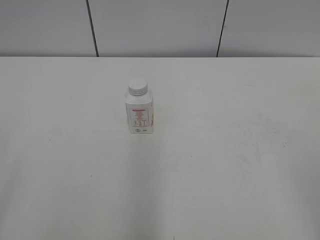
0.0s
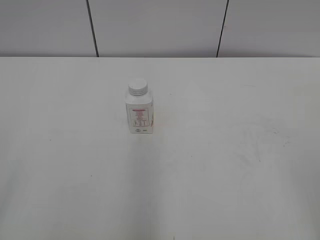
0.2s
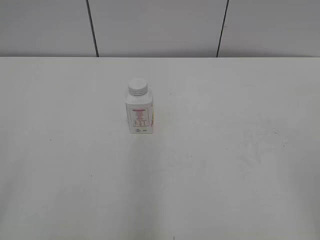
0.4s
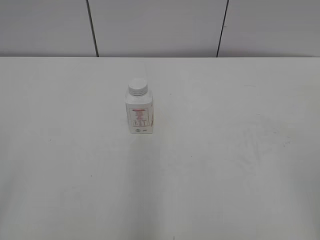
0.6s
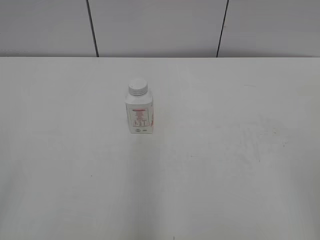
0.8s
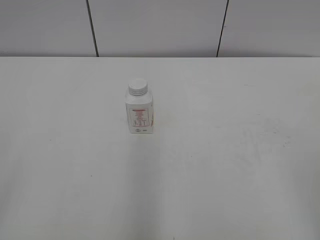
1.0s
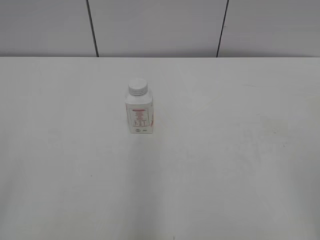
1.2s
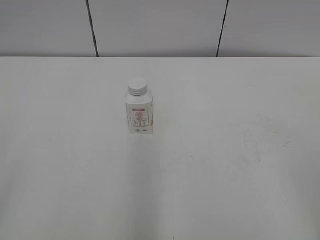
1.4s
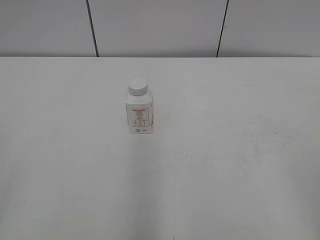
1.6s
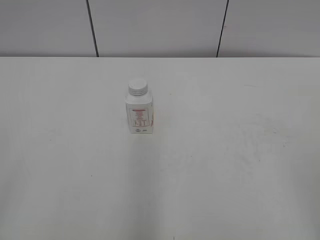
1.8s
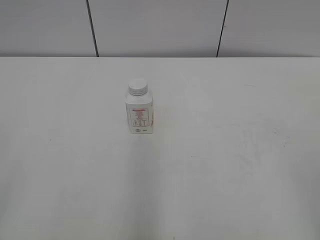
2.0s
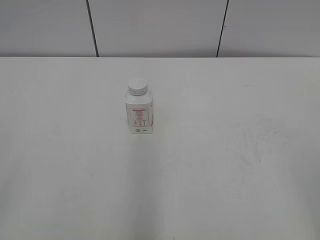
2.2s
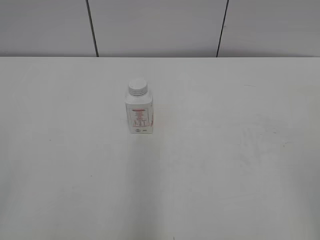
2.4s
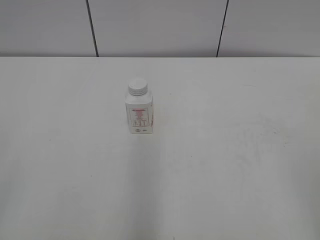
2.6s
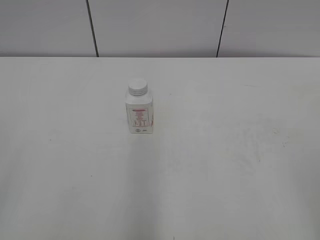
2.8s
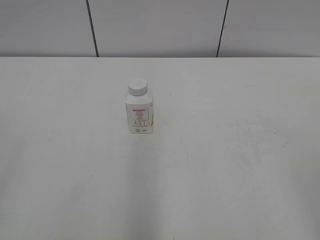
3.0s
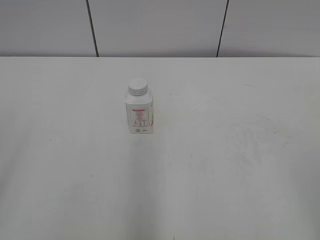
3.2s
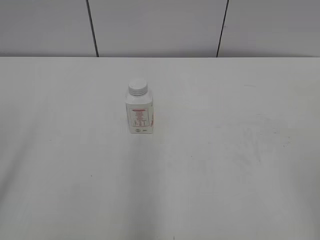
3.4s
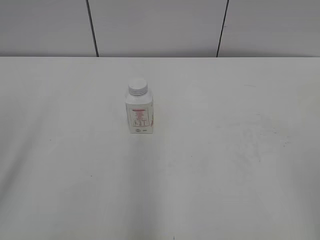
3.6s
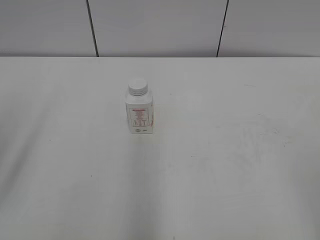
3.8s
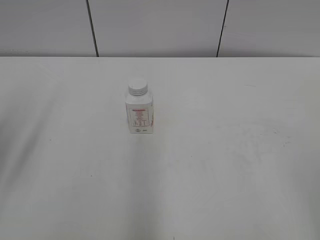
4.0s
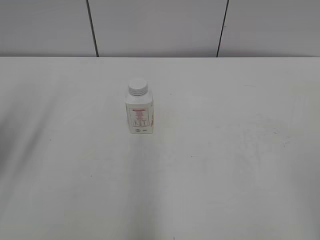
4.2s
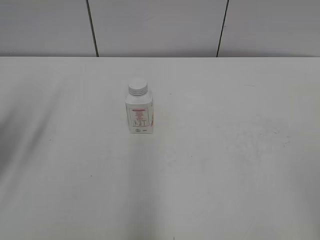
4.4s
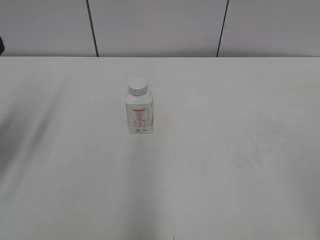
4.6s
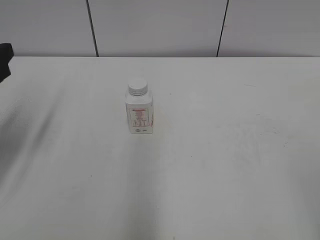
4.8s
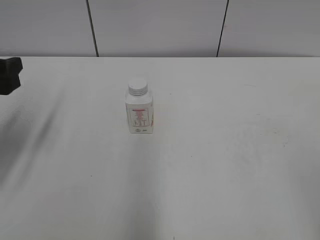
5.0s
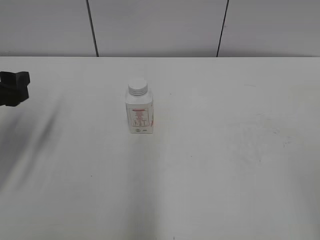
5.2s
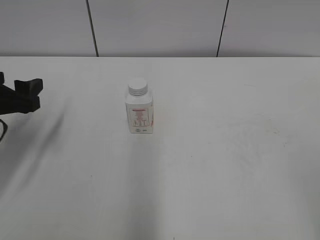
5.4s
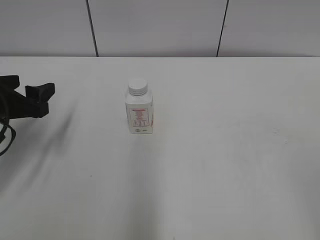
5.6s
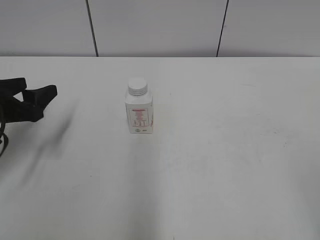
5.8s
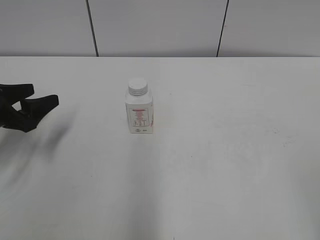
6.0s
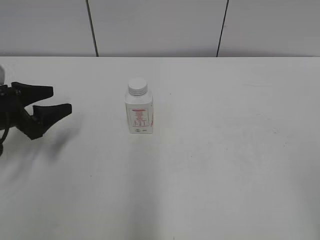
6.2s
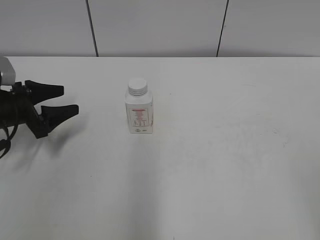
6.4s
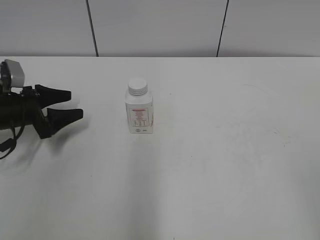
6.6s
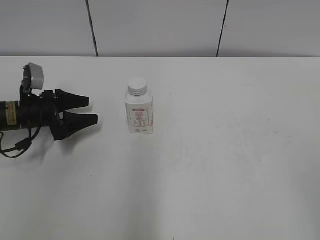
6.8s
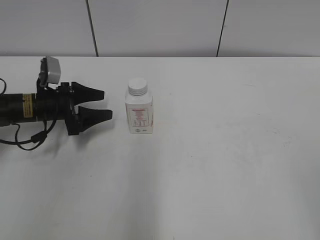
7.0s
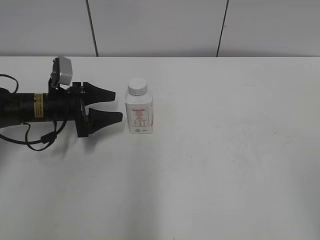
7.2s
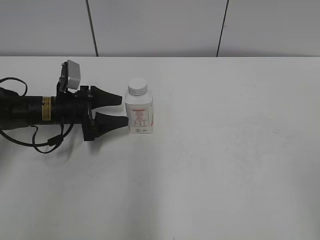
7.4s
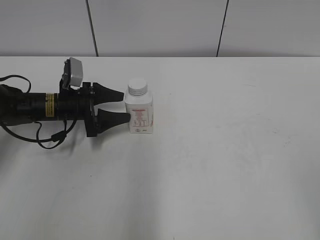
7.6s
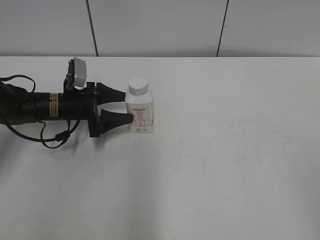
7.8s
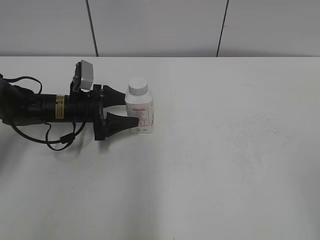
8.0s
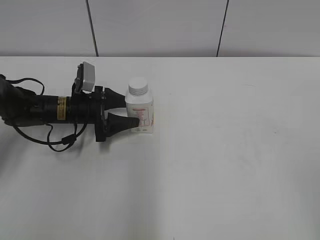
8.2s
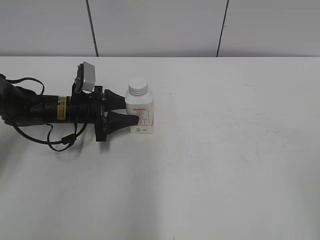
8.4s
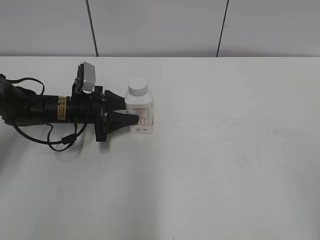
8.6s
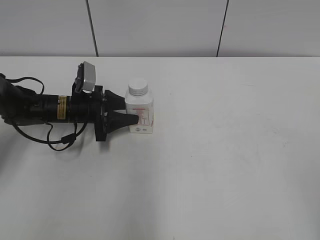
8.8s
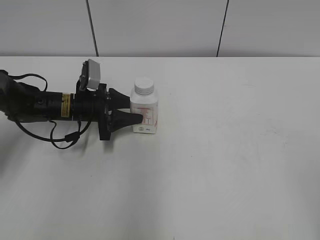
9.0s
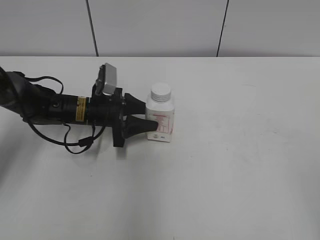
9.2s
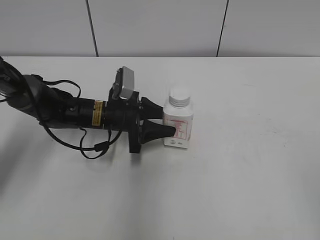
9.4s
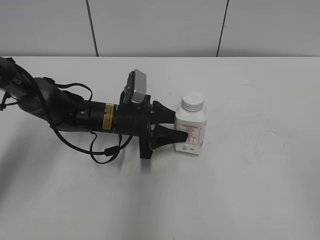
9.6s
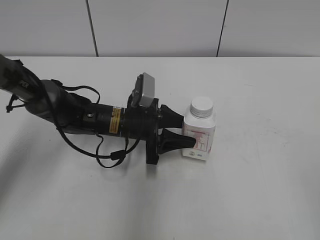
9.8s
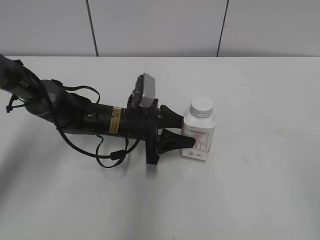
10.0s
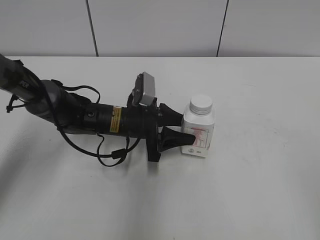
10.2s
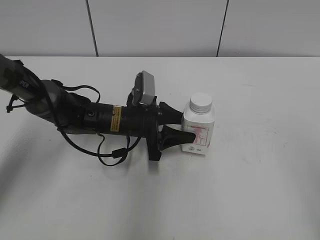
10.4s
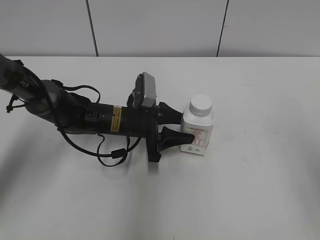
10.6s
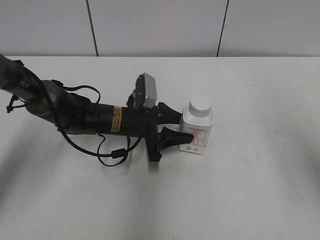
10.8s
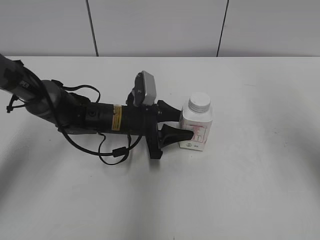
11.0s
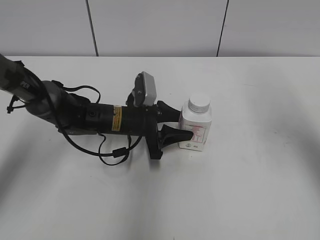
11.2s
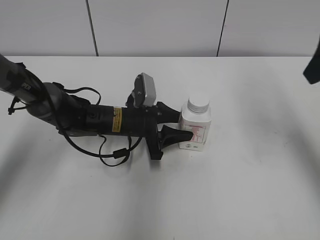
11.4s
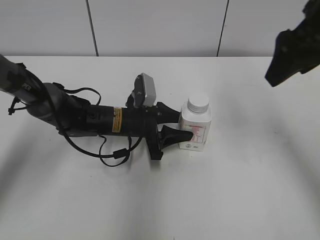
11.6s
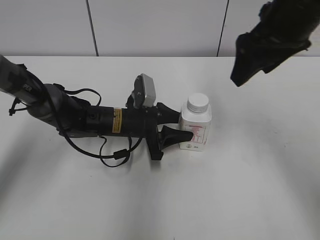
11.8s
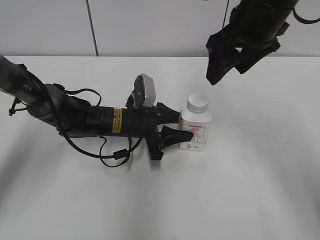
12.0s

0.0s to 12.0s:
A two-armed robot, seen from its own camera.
Step, 0.0s to 8.2s: Grasp the bottle and move it to the center of the table with the left gripper.
Step, 8.6s to 11.6s: Lift the bottle and move it to the center of the table with the left gripper.
3.0s to 4.4s: The left gripper is displaced forward by roughly 20 cm, and opens.
4.4s to 6.0s: The left gripper is displaced downward and forward by roughly 15 cm.
6.0s to 7.6s: The left gripper is displaced forward, to the right and downward by approximately 15 cm.
7.6s to 9.0s: The left gripper closes.
9.0s to 10.4s: The left gripper moves to the right, some 10 cm.
10.4s to 12.0s: The right gripper travels forward and to the left by roughly 35 cm.

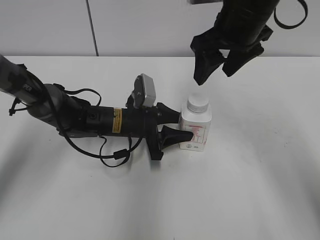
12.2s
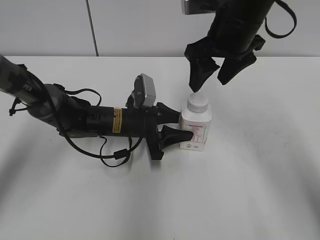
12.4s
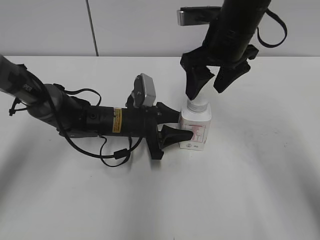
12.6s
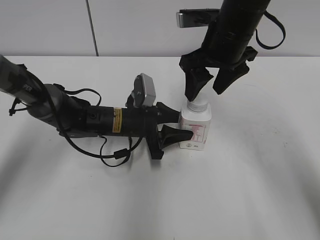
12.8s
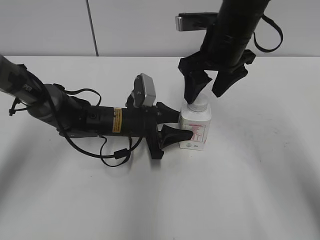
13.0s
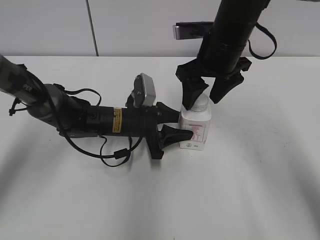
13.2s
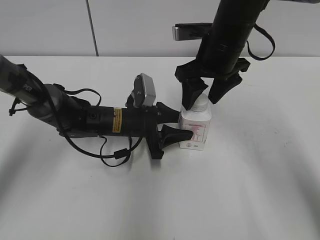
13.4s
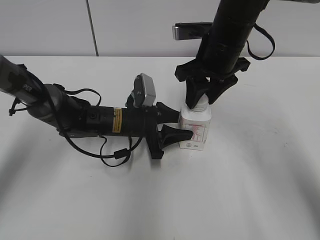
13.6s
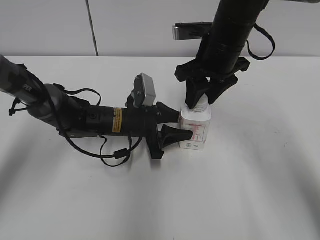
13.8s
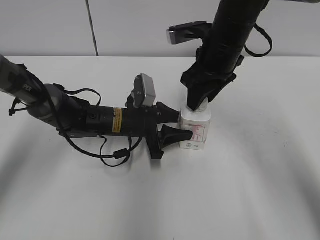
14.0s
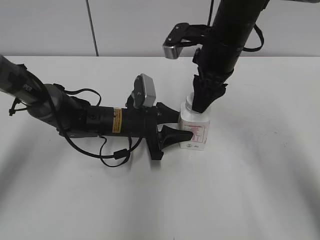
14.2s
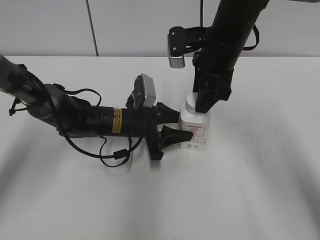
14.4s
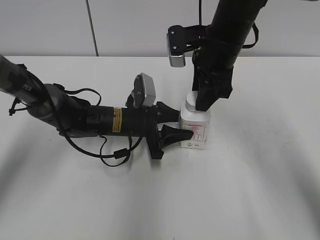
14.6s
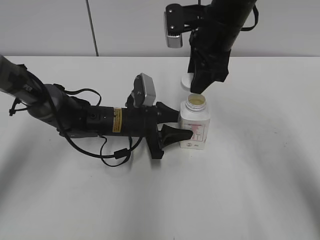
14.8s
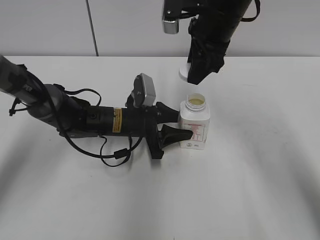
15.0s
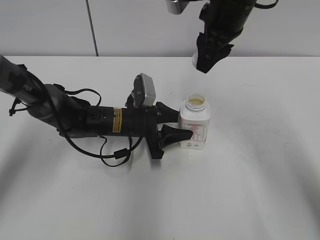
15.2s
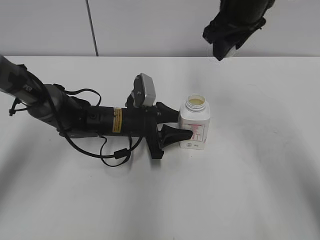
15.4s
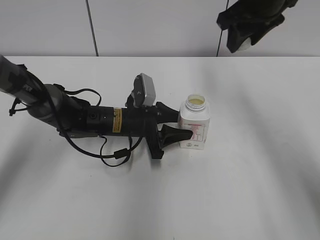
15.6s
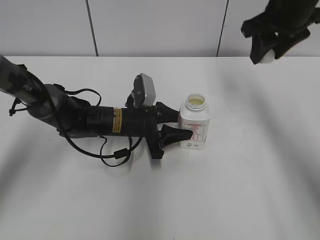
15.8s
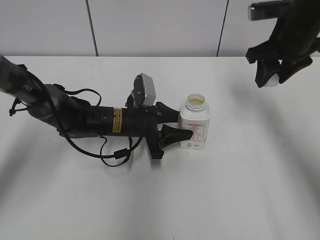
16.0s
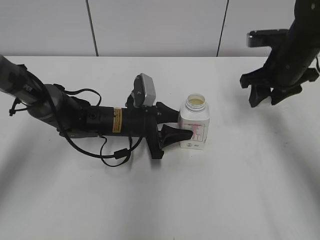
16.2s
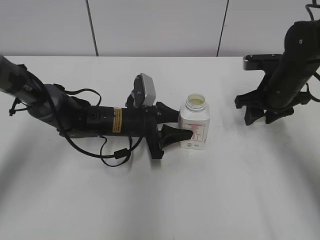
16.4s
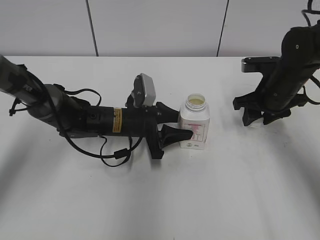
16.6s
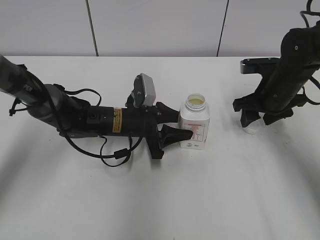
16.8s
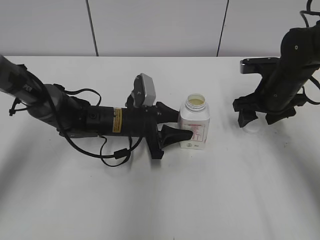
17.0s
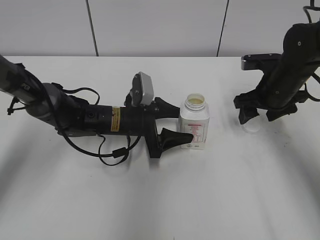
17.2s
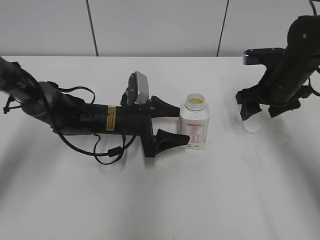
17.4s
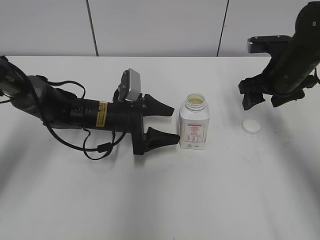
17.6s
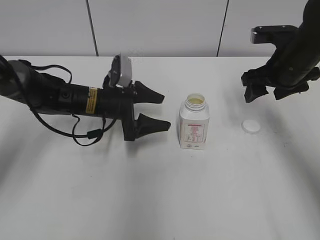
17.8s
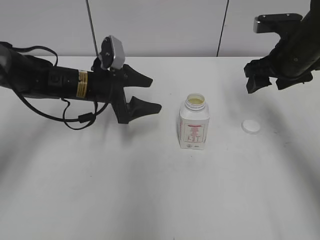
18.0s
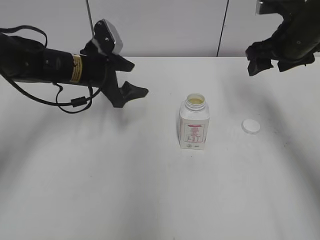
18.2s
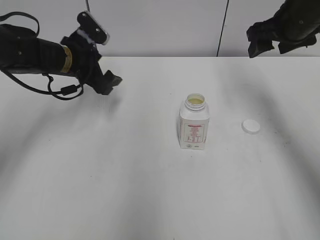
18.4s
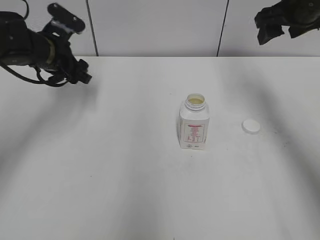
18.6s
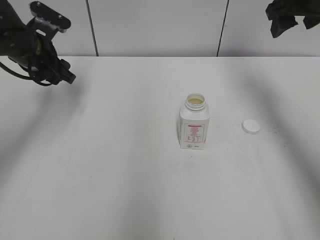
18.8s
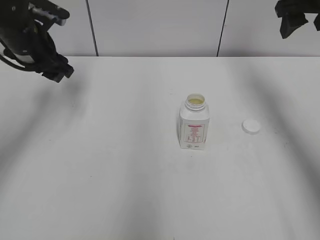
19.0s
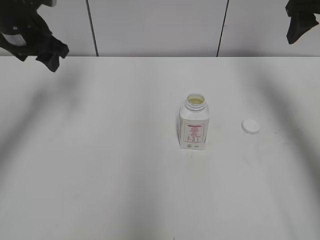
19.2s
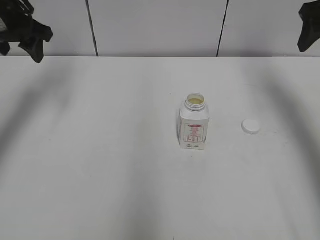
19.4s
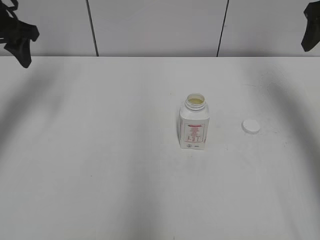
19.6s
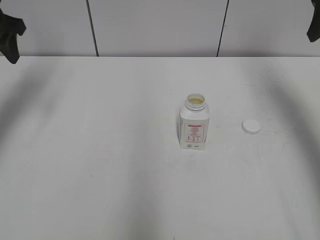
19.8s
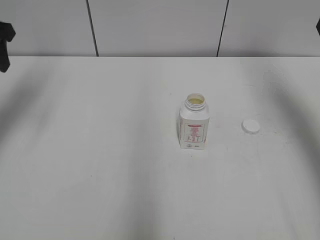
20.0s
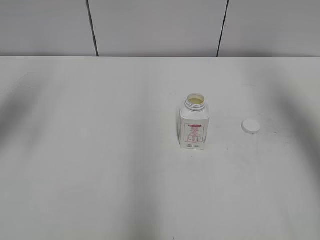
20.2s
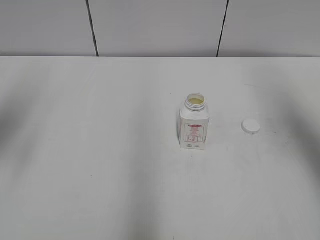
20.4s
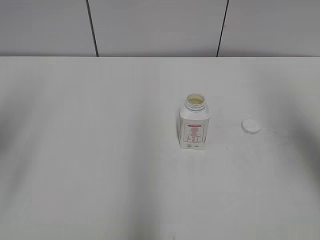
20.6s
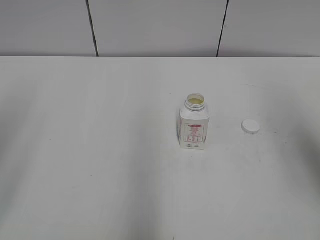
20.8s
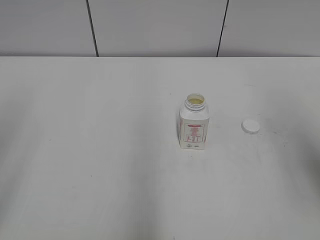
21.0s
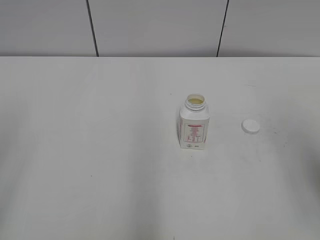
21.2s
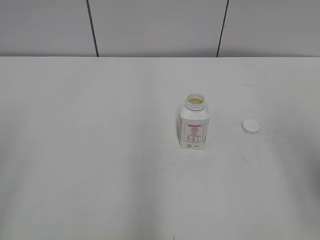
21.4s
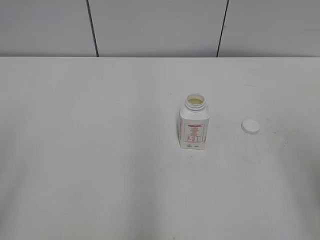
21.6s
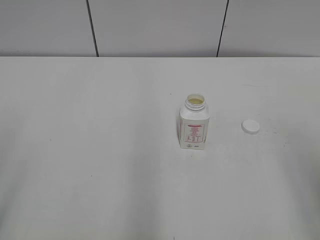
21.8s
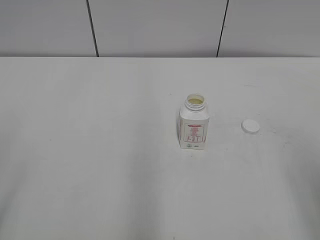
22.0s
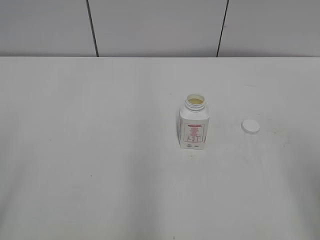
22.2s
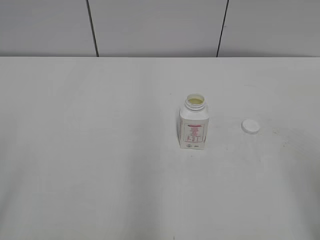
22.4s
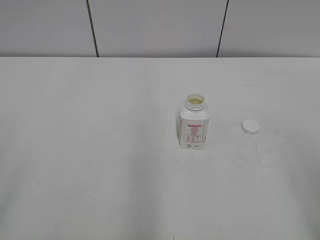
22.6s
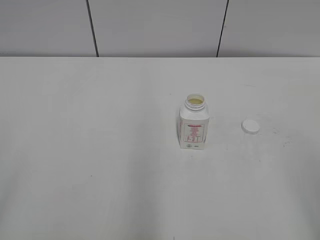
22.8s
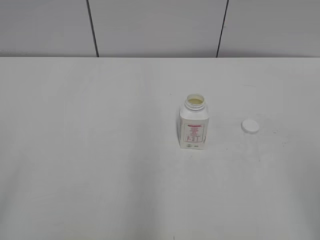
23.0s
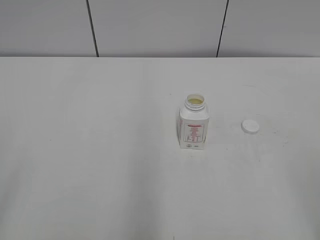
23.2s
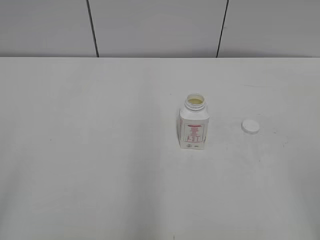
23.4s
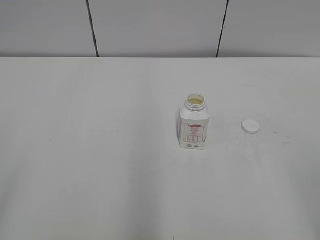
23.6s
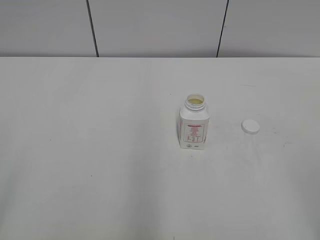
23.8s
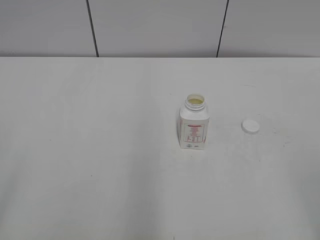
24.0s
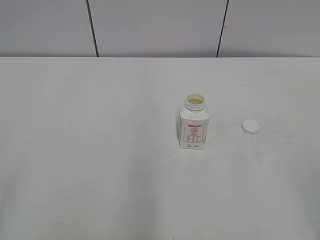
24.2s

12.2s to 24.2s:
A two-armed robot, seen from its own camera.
Step, 12.2s to 15.0s: Unscrew the bottle cap with the right gripper while holding the bottle with the left gripper.
Step, 15.2s to 16.8s: Place the bottle cap on the table with the right gripper.
Step, 17.0s to 17.4s: Place the bottle on the table with the left gripper.
12.2s to 13.8s: The right gripper travels downward by about 5 cm, and closes up.
13.8s to 15.2s: The right gripper is displaced upward by about 5 cm.
15.2s to 16.6s: The right gripper goes about 20 cm downward and to the right.
16.6s to 18.2s: The right gripper goes roughly 10 cm upward, and opens up; the left gripper moves upward and to the left, approximately 10 cm, and opens.
18.2s to 19.8s: The right gripper shifts roughly 10 cm upward and to the right. The left gripper travels to the left and upward by roughly 20 cm, and closes.
19.8s to 21.2s: Both grippers travel together backward, some 25 cm.
